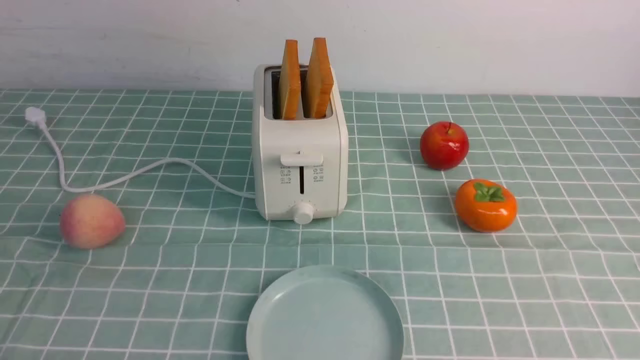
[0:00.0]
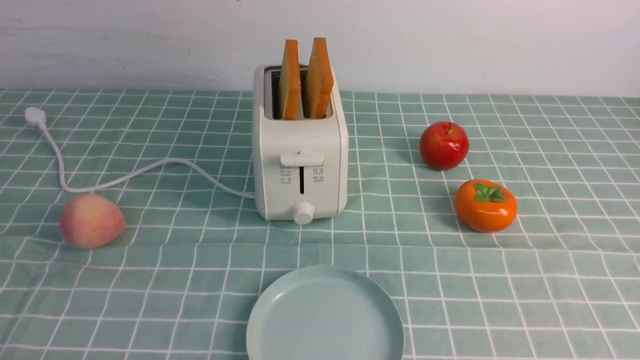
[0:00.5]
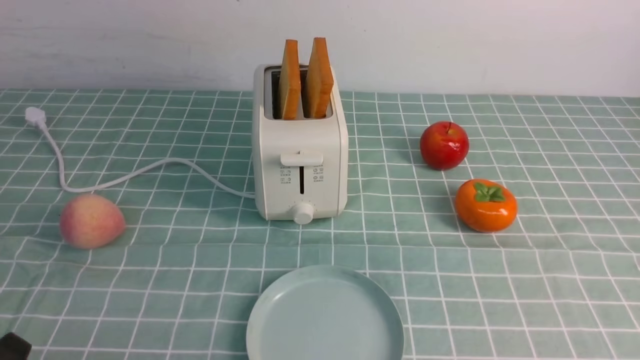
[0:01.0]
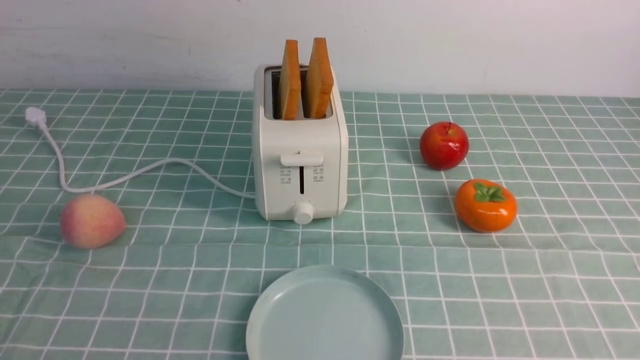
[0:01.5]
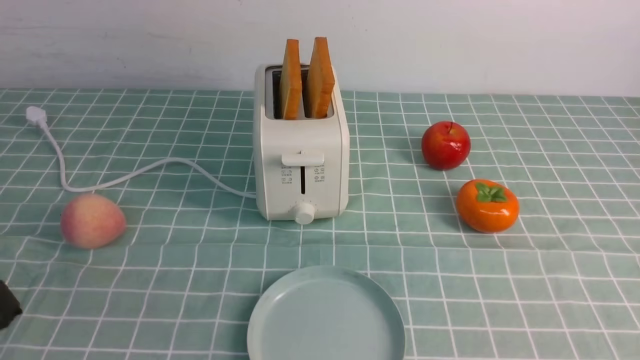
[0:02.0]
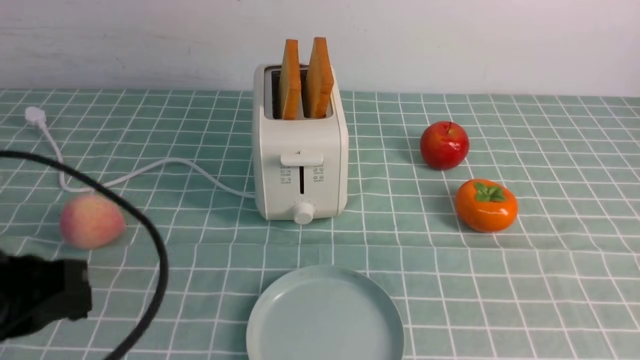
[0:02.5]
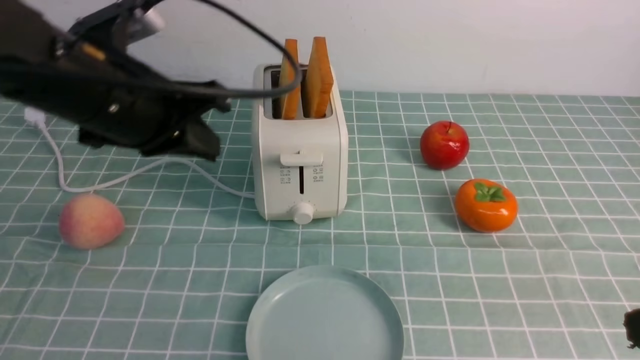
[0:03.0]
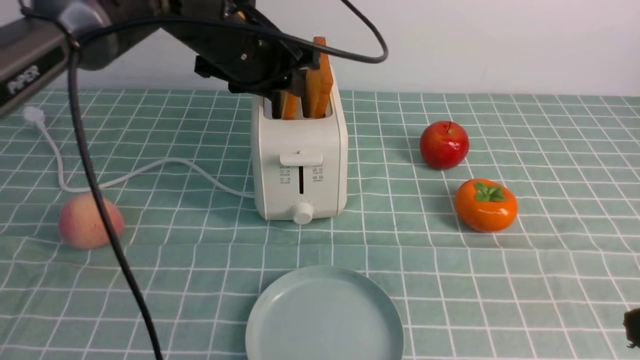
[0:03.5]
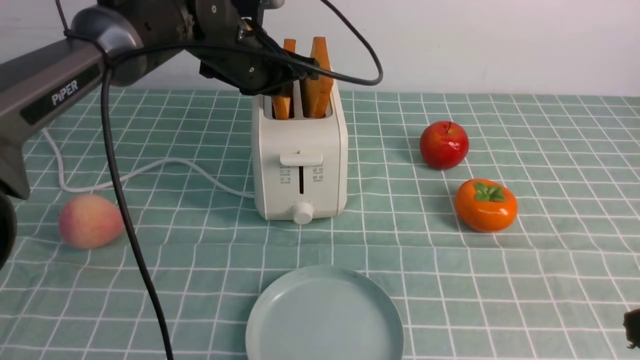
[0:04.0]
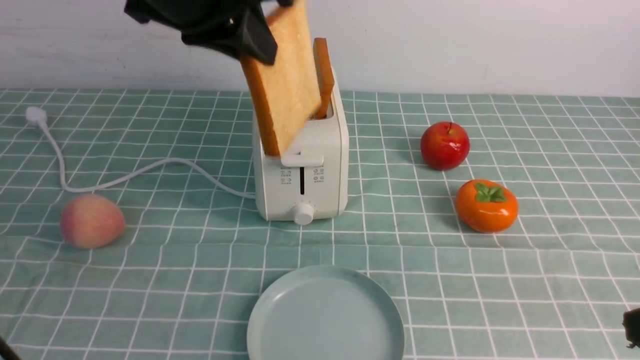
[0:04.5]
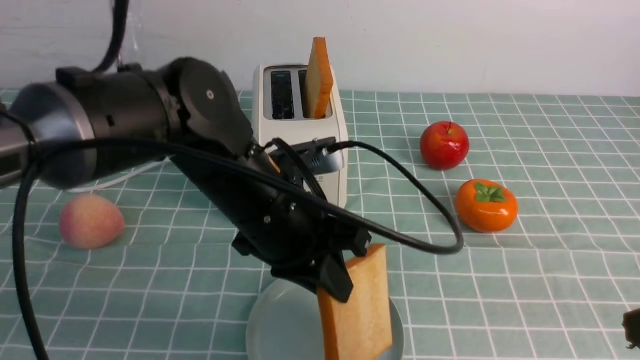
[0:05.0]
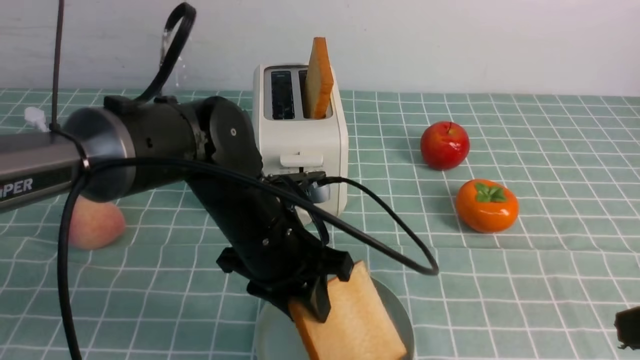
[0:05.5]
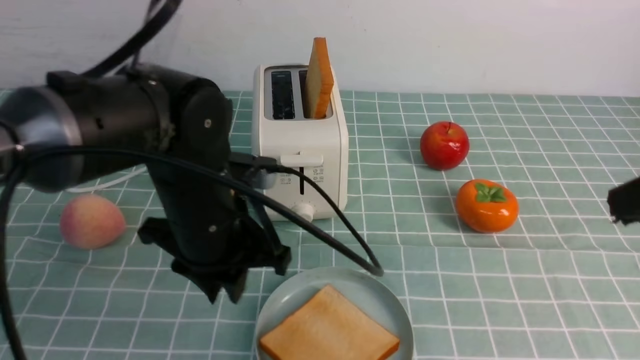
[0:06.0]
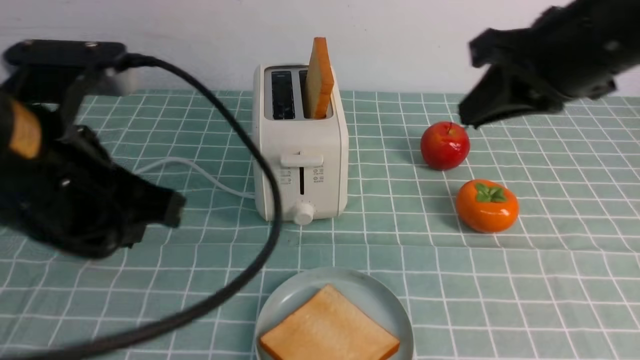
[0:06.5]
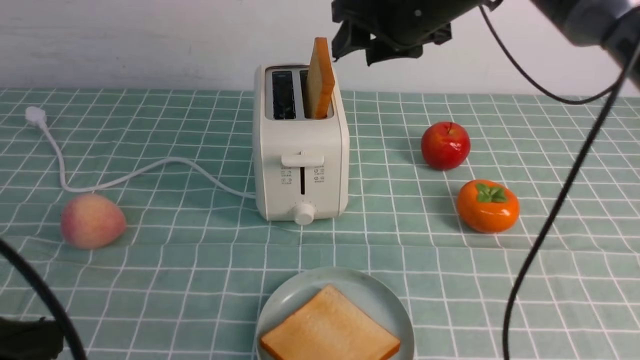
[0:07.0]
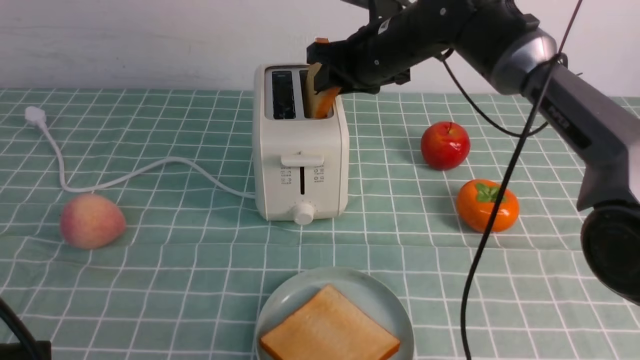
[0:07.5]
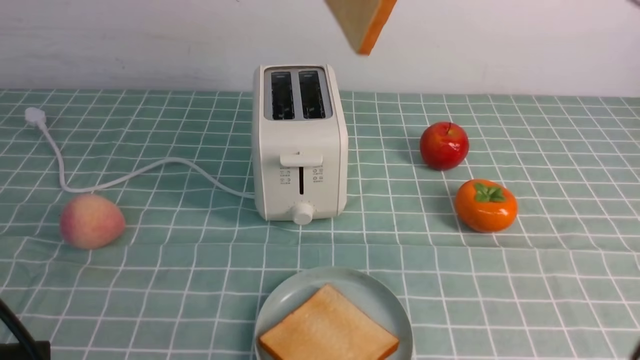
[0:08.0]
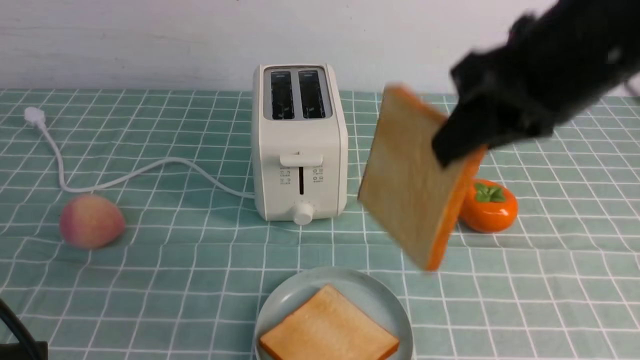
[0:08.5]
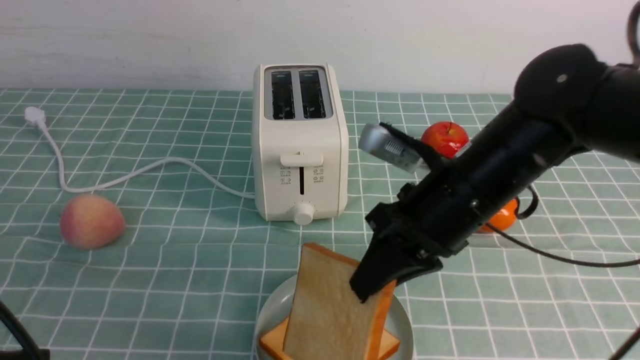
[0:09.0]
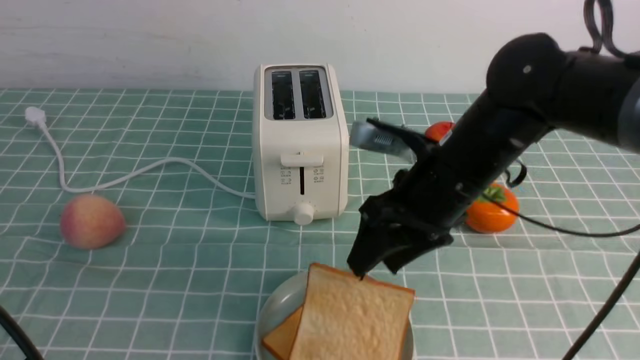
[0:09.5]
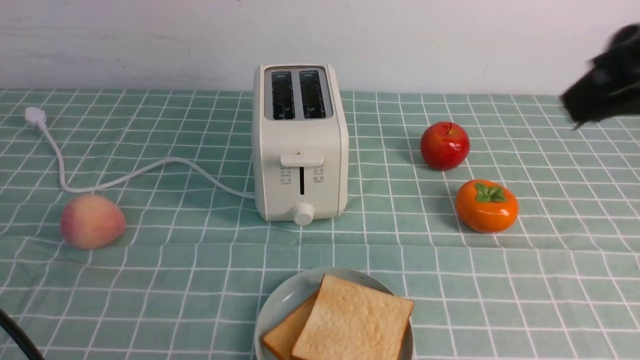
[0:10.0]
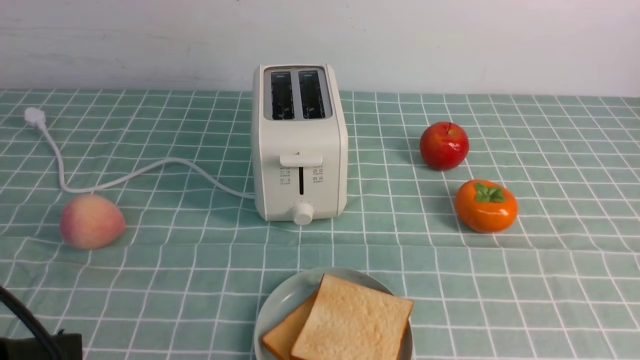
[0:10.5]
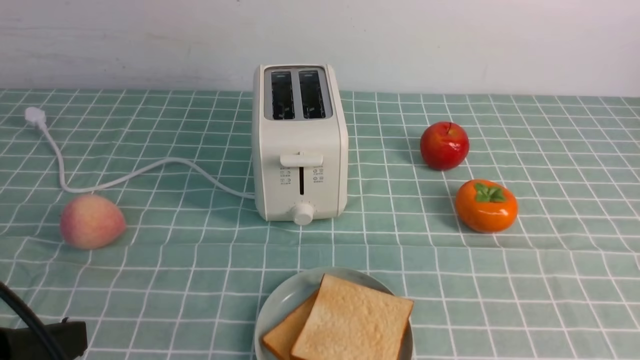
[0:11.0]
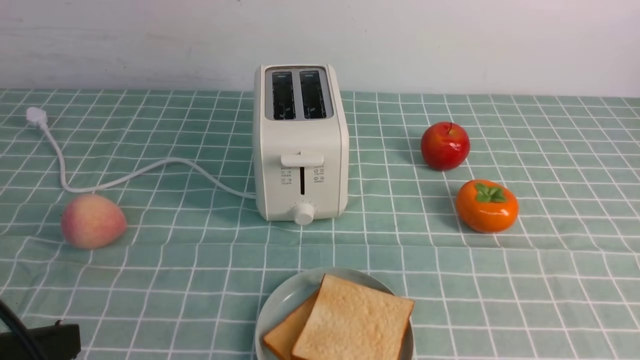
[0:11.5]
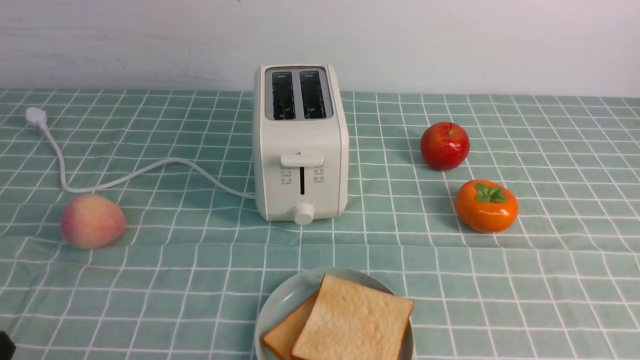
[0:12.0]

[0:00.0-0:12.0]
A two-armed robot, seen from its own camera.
Task of the whole recording: take toasted bread from bread machine on blue coffee table place on plate.
Step, 0:00.0 to 0:04.0: use the left arm to take out a slice of bread.
Step, 0:04.5 to 0:05.5: use the left arm to put a slice of bread into the empty plate.
Step, 0:06.0 to 0:08.0: use the right arm to take out a slice of bread.
Step, 0:08.5 to 0:09.5: use the right arm to put a slice of bread into the plate.
0:02.0 to 0:04.0: The right gripper shifts roughly 10 cm upward and forward, and closes up. Meanwhile the left gripper shifts approximately 40 cm forward, and opens its fingers.
0:04.0 to 0:06.0: The left gripper travels backward and downward by some 20 cm, and closes, then opens again. Meanwhile the right gripper travels upward by some 5 cm.
0:06.0 to 0:08.0: The left gripper moves backward and to the left, roughly 25 cm, and closes its fingers; the right gripper goes approximately 25 cm forward and to the left, and opens, then closes once more.
0:08.0 to 0:10.0: The right gripper shifts some 20 cm backward and to the right, and goes downward and returns, approximately 20 cm each way.
0:10.0 to 0:12.0: The right gripper goes some 25 cm backward, downward and to the right, and closes its fingers.

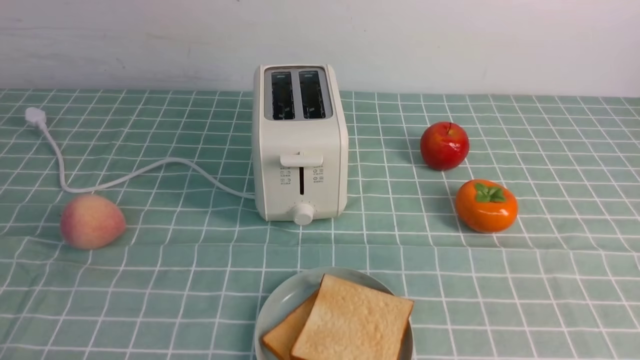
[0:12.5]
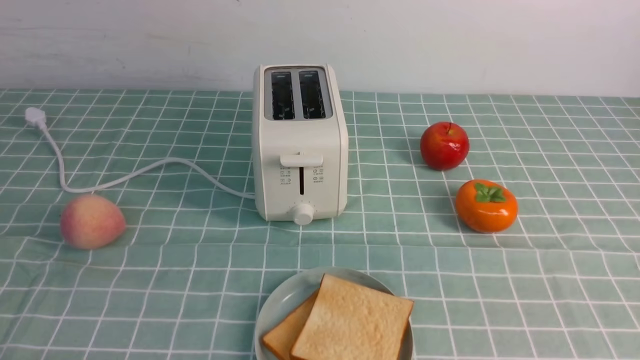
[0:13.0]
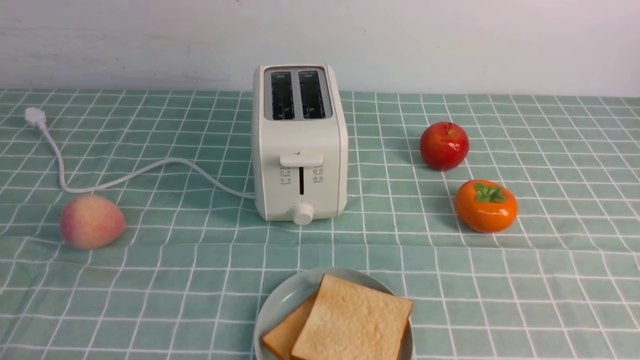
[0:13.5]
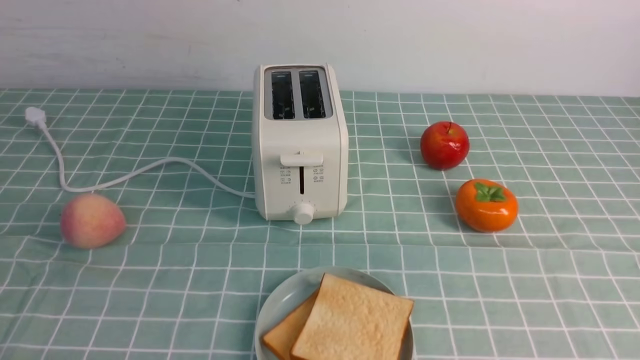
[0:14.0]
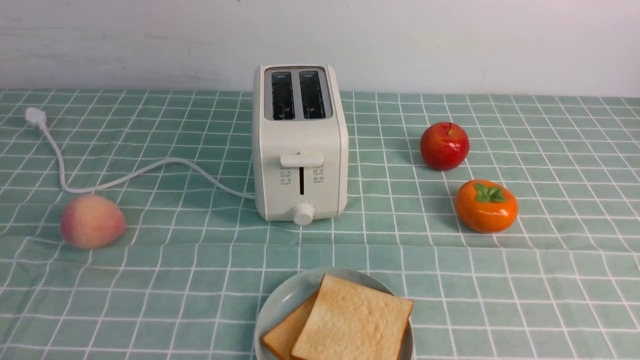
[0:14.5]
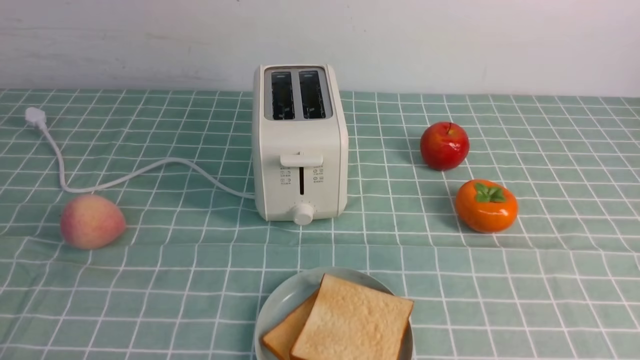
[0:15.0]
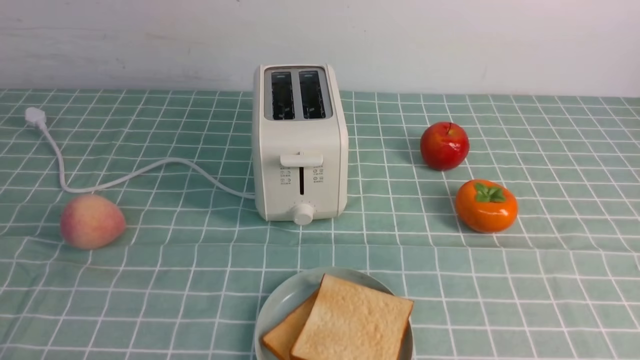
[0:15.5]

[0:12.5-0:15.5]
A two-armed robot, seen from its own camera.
Task of the whole recording: take toasted bread from bread machine on blue coffee table place on plate.
0:14.0 to 0:15.5: Both grippers stay about where they are.
